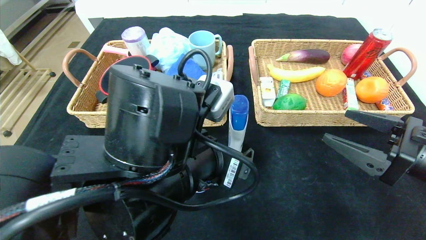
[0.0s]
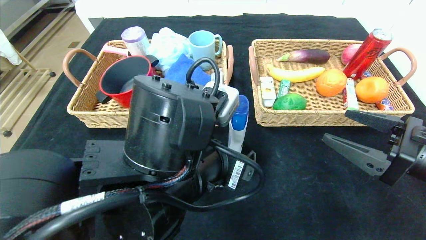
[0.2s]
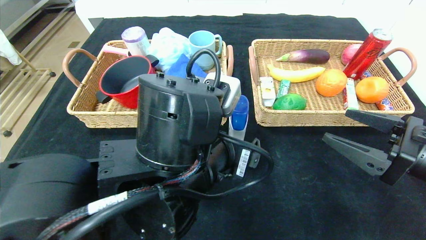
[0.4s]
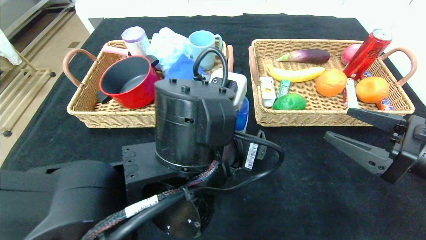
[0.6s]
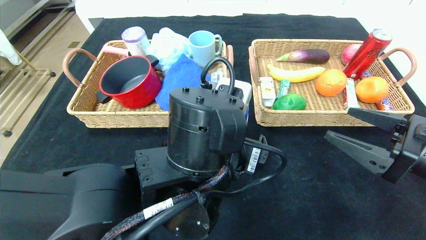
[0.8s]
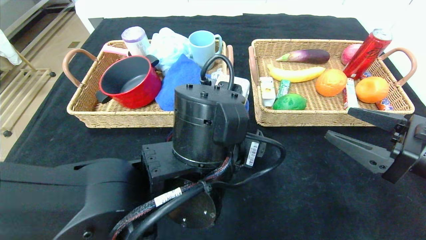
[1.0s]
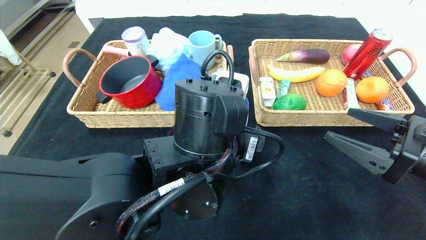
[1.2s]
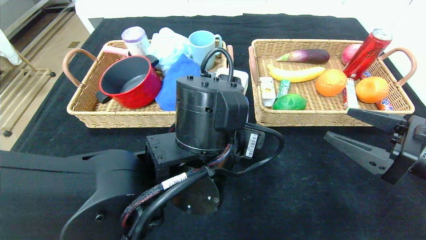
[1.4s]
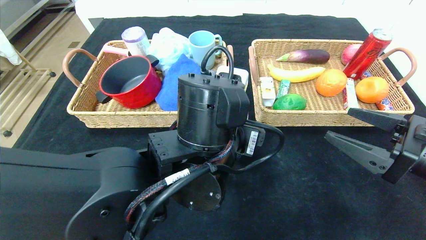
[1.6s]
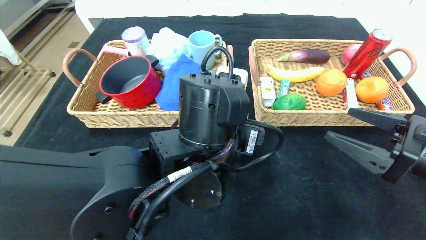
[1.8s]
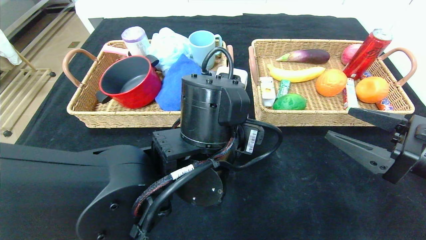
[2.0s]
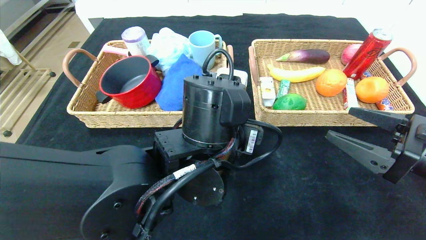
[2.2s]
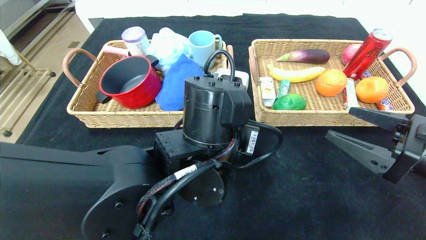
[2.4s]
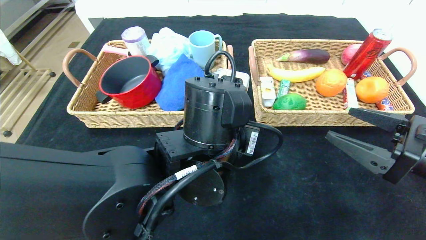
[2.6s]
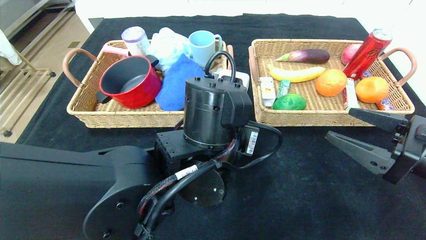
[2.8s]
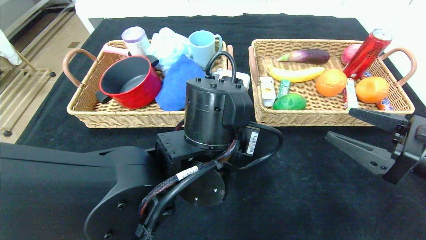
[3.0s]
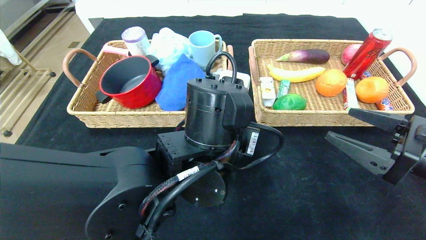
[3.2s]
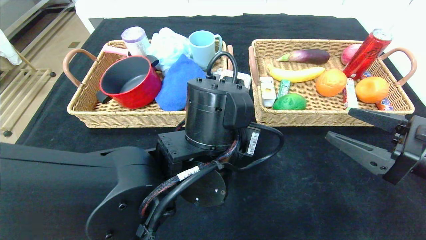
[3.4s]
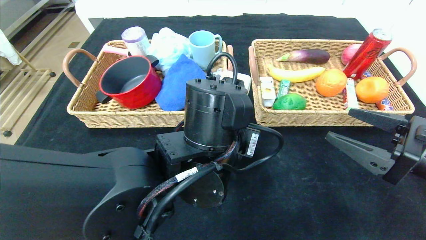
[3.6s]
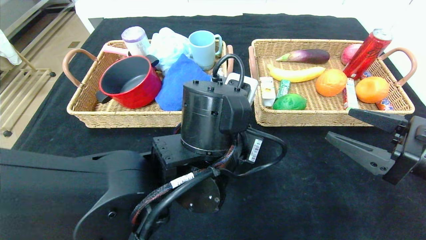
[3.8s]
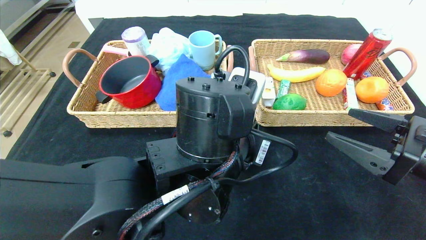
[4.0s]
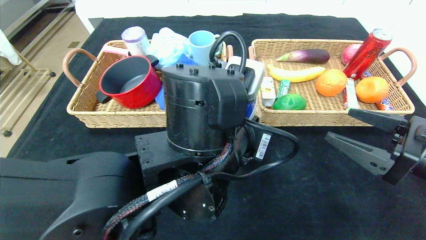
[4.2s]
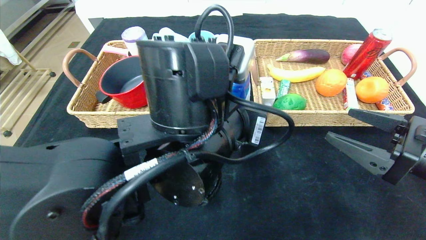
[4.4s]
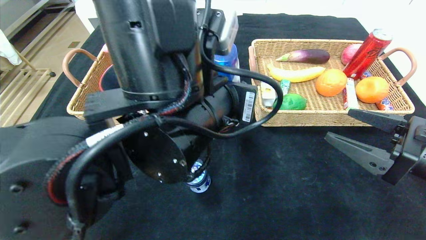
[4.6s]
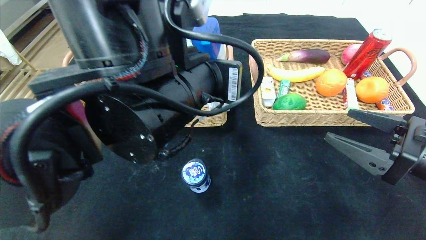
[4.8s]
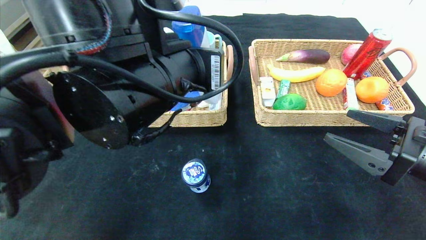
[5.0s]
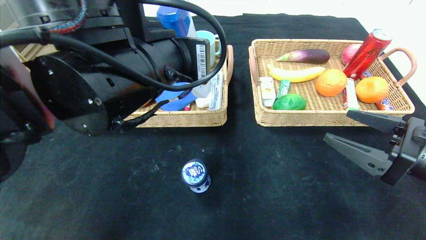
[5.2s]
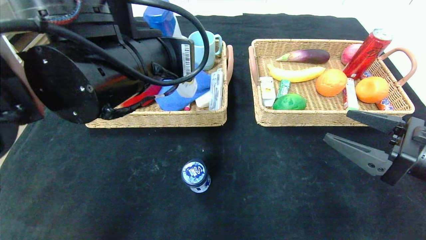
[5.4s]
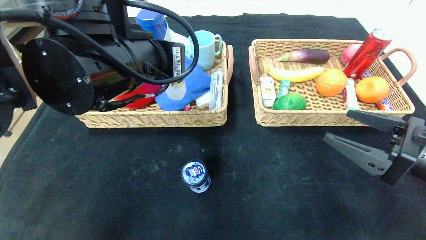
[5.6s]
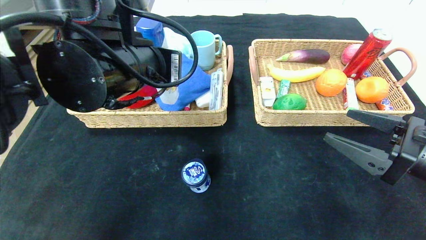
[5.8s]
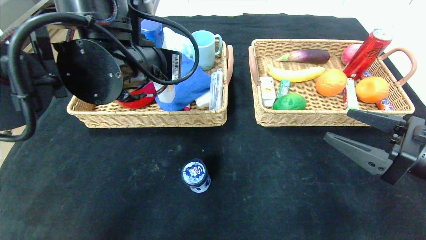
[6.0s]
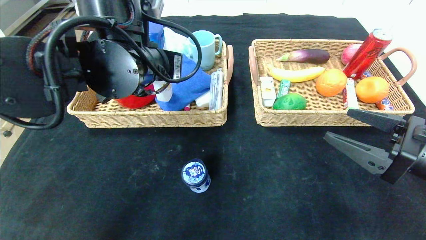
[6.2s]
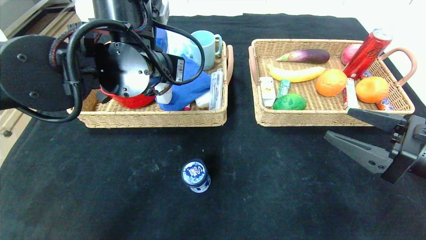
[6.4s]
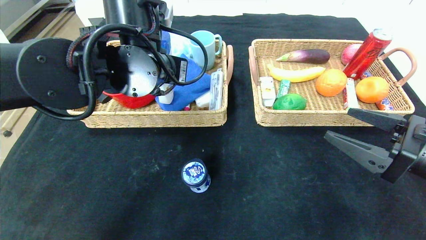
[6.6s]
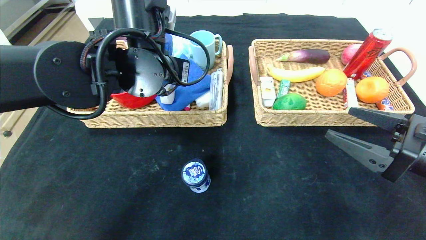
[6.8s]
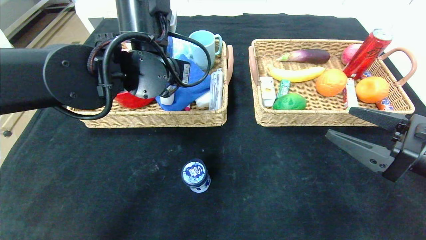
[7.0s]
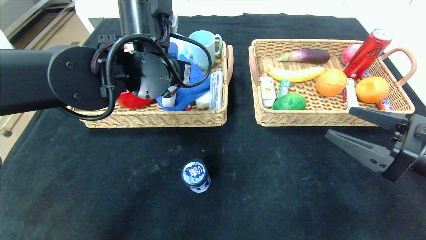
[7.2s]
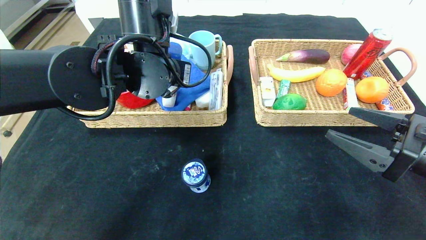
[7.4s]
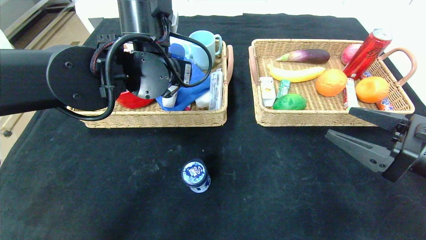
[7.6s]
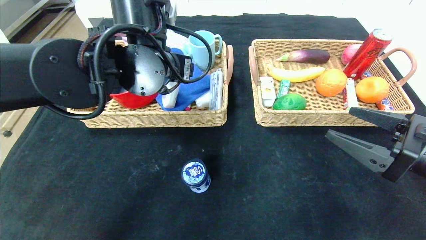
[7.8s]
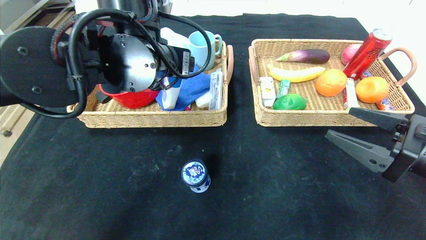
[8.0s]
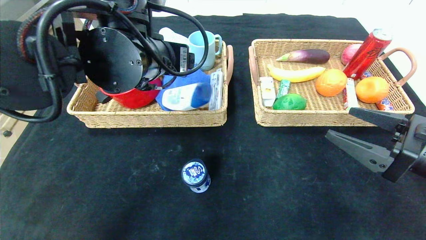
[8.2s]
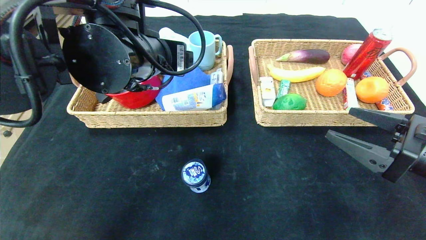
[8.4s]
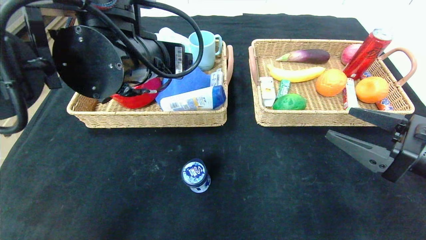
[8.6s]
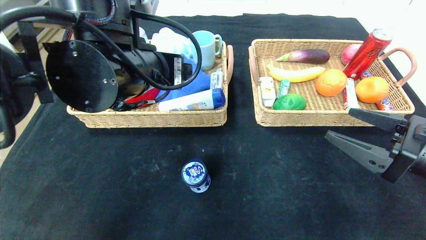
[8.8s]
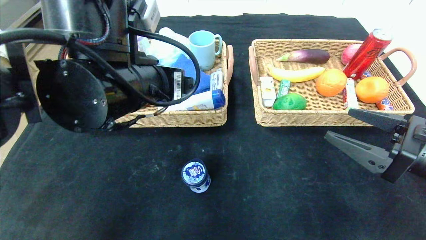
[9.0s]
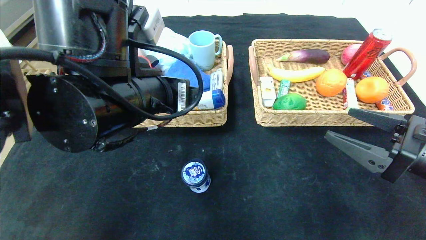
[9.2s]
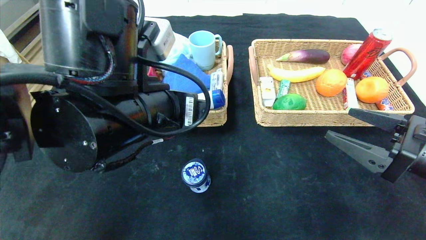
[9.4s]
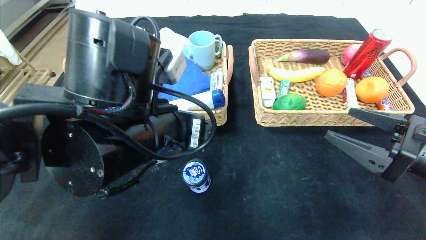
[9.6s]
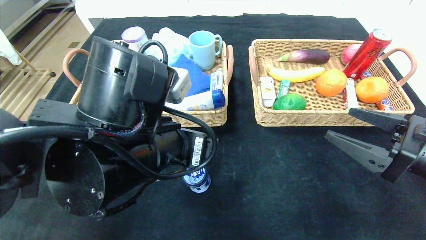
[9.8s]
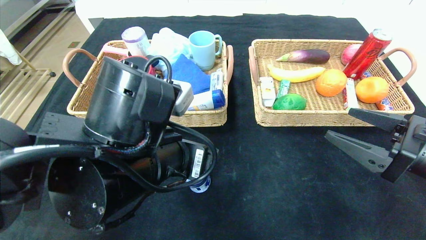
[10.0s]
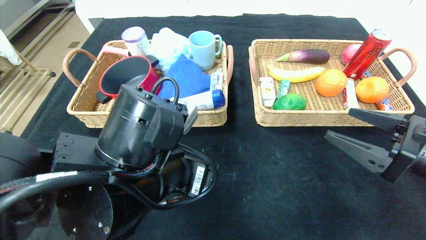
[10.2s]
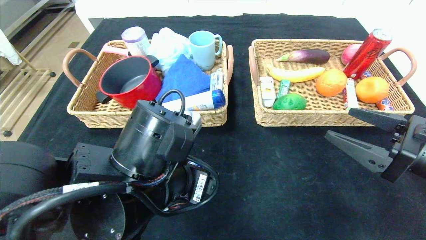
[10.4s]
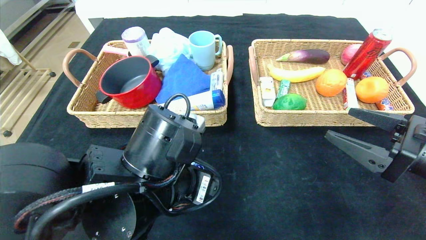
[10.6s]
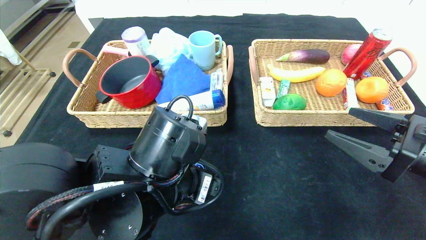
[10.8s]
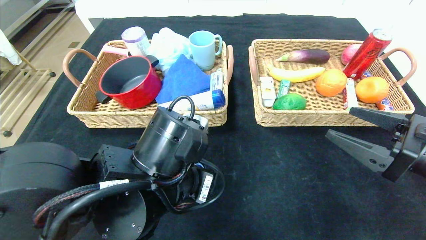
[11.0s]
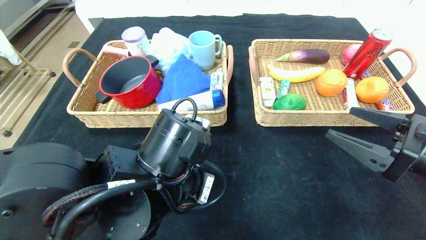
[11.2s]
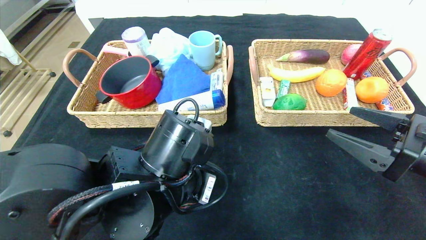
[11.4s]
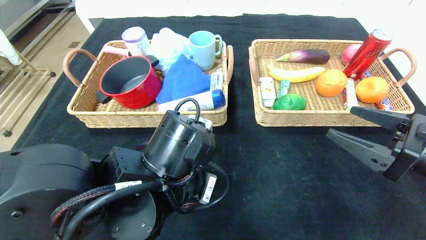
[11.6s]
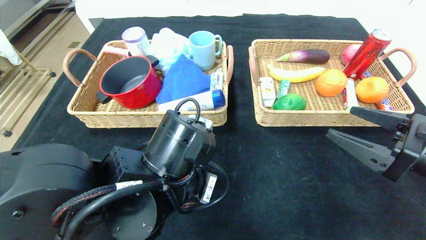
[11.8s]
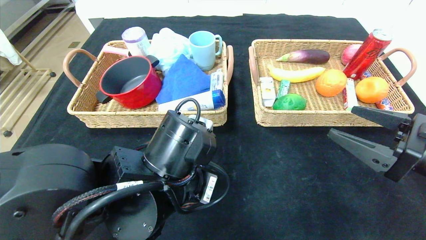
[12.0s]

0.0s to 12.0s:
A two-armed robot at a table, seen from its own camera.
Step, 0.0s to 10.0s: Pick up the shampoo and put it in the left basket.
0.0s to 1.6s: The left gripper moves about 5 cm.
1.6s to 3.0s: The left gripper closes up.
4.4s to 6.0s: The left gripper goes about 15 cm to the left, upward and forward.
6.0s to 7.6s: The left gripper is displaced forward by about 5 cm, and opens up.
7.6s to 9.0s: The left gripper shifts approximately 10 cm backward.
9.0s to 10.4s: The left gripper shifts some 10 cm downward.
10.4s to 12.0s: The left gripper closes.

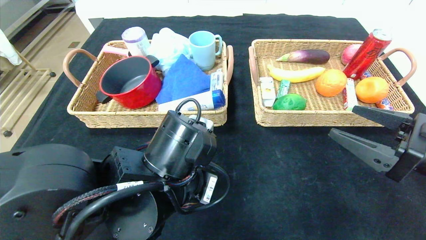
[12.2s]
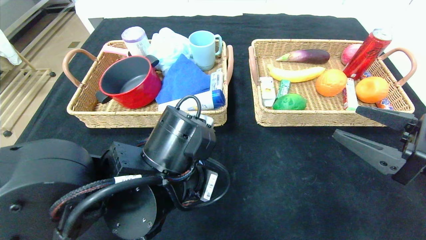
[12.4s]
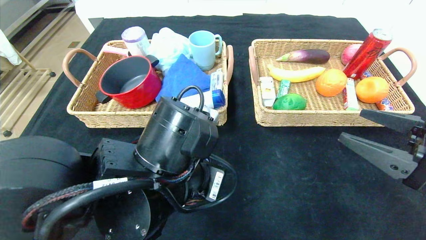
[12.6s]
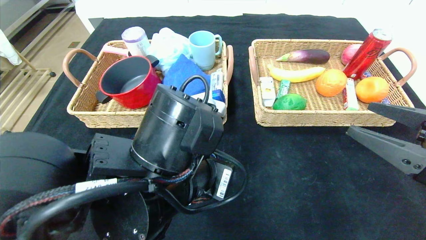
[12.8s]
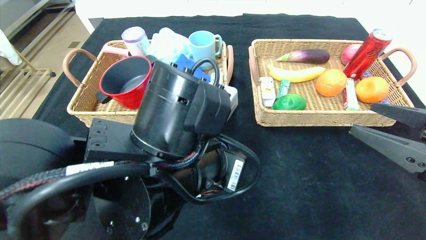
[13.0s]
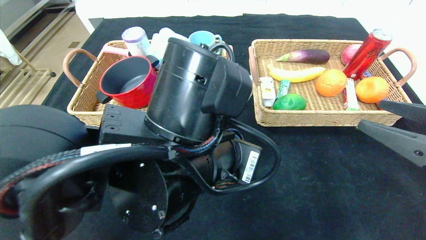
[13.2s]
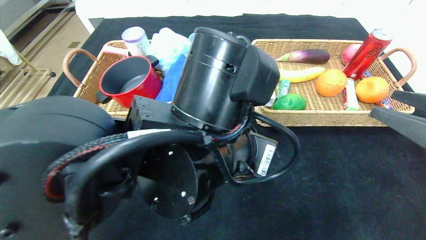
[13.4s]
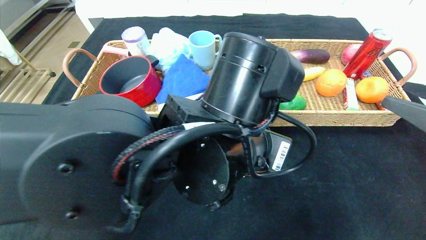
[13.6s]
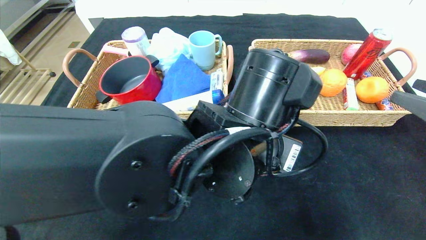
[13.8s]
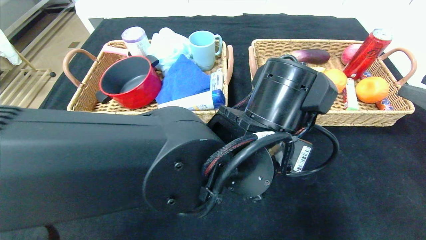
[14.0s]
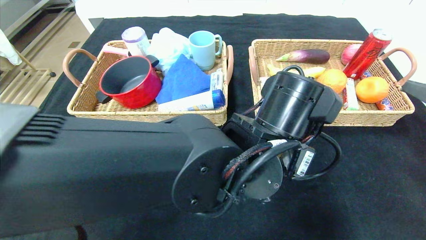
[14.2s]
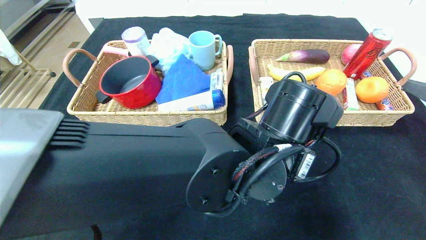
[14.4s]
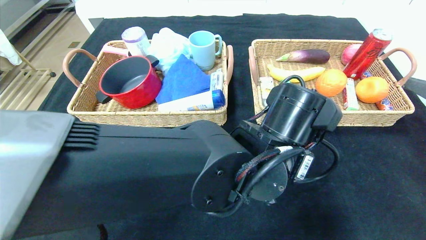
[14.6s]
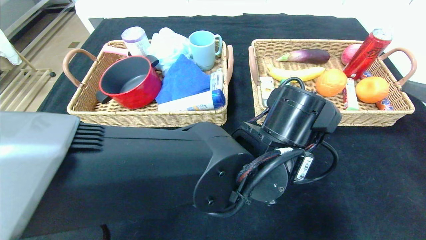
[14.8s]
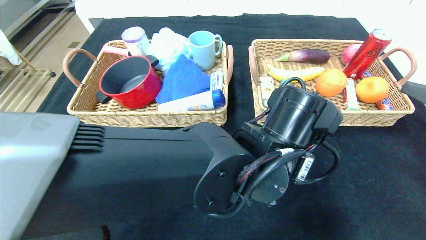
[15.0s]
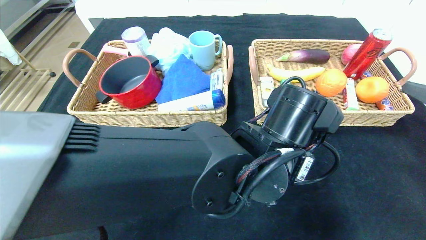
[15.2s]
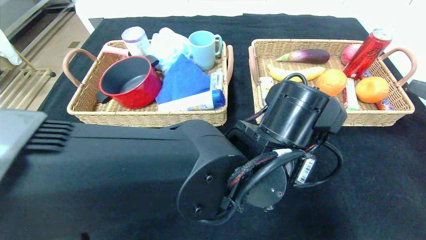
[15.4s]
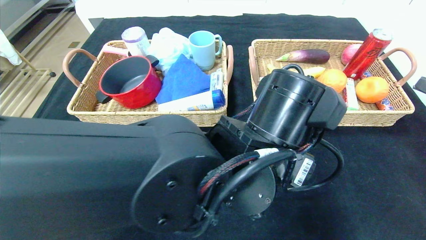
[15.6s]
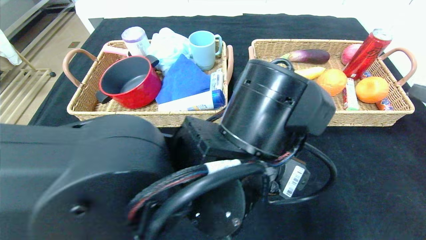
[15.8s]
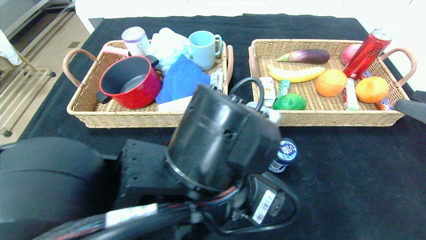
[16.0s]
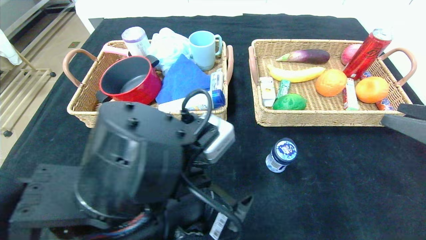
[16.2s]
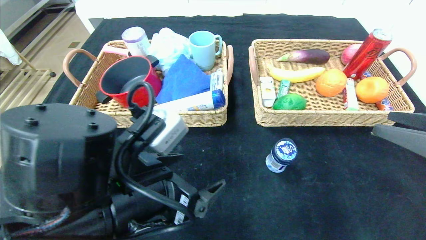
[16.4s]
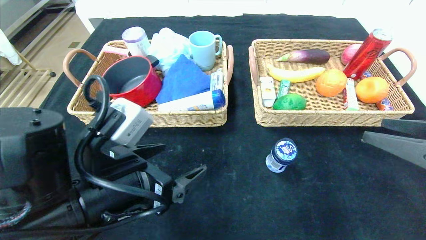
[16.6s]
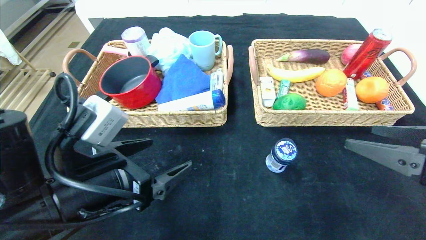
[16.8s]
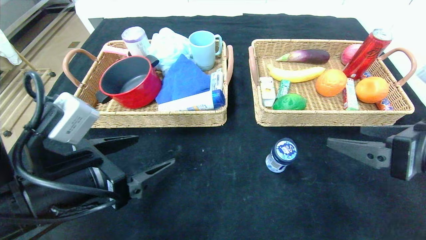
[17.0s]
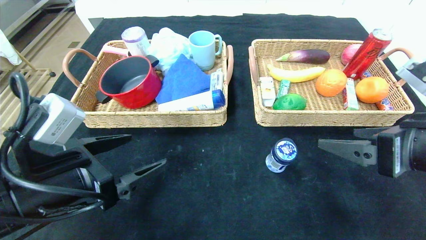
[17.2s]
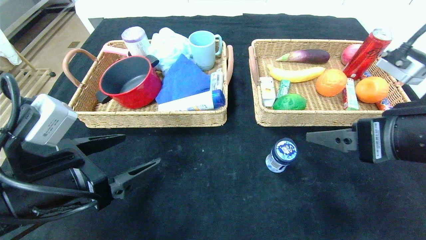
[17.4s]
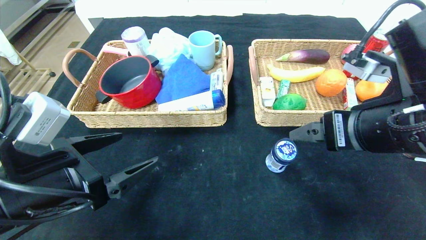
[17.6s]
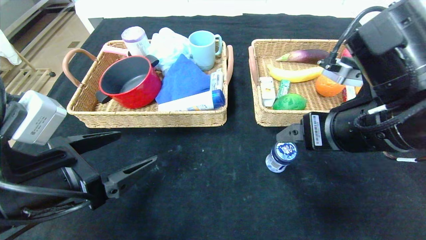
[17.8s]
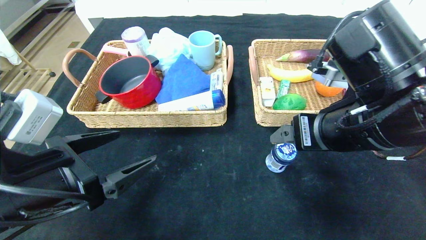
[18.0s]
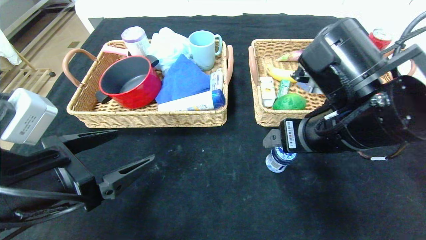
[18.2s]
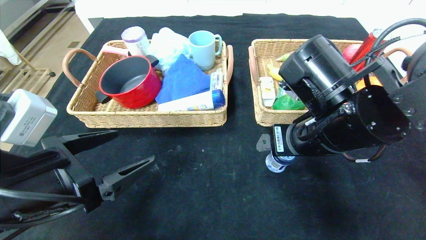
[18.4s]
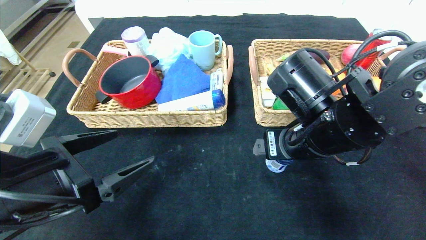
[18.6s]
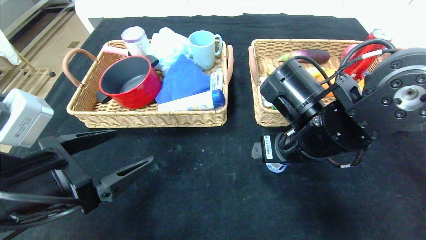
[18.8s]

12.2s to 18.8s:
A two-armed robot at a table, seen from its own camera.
Step, 12.2s to 16.0s: Place the round chewing gum in the center of the table.
12.2s to 13.8s: The left gripper is displaced to the right and upward by roughly 10 cm, while the right gripper goes some 5 cm upward.
13.8s to 15.4s: The left gripper opens up.
15.4s to 17.2s: The right gripper travels to the left by approximately 10 cm; the left gripper goes roughly 30 cm to the left.
17.2s to 18.8s: The right gripper shifts about 15 cm to the left and forward.
